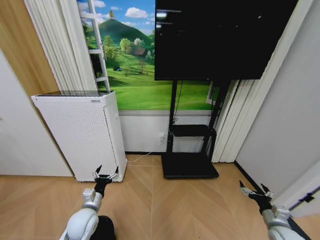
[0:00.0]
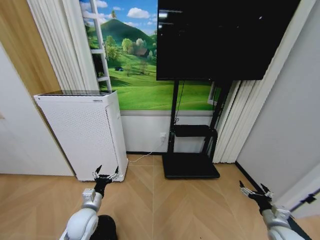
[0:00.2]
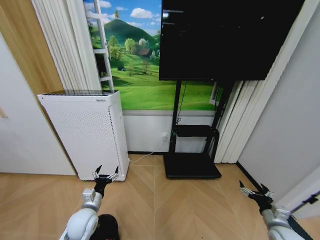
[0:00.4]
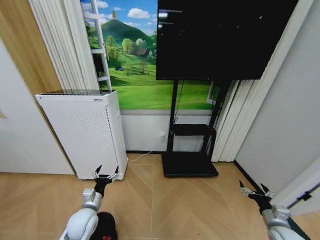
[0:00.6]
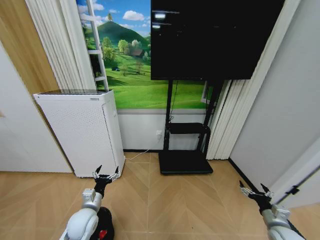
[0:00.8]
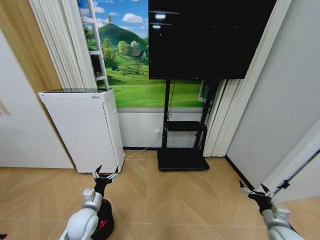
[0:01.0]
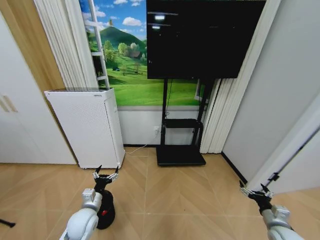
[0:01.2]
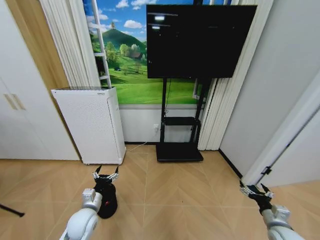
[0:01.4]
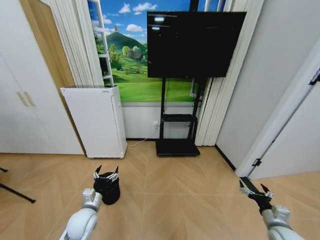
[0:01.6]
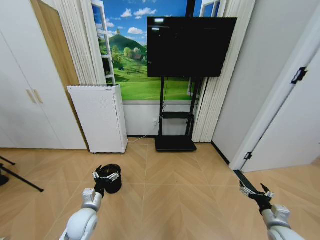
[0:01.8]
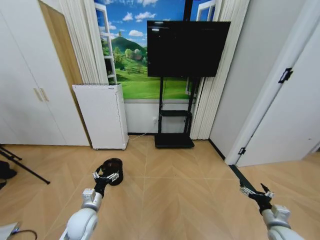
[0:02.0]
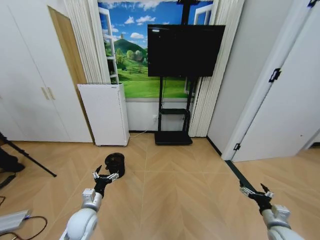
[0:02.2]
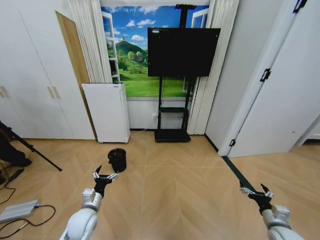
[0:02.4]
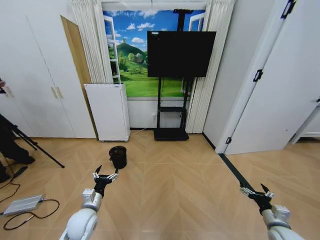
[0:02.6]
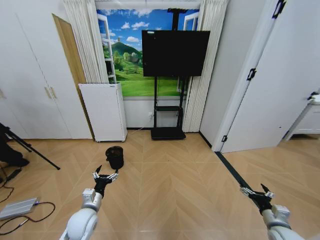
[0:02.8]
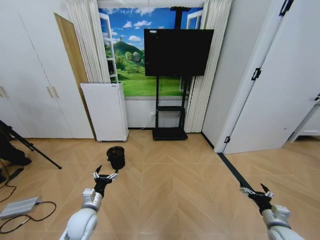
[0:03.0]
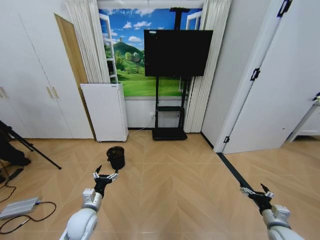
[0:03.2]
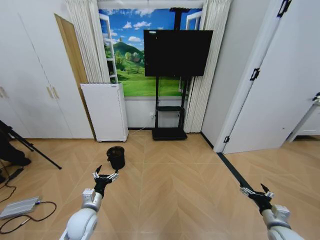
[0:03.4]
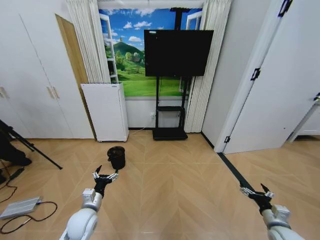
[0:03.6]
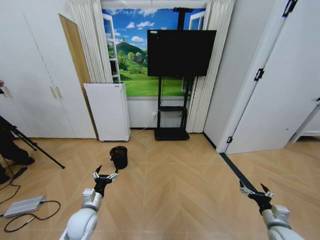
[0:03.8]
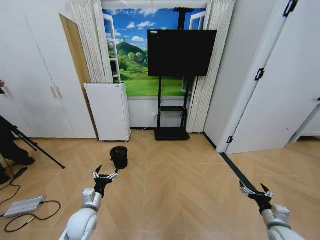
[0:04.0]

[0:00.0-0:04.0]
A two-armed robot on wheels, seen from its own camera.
Task of the whole recording: Pick up the trash bin and place the garbage on the floor into it.
0:02.6 to 0:04.0: Both grippers stay put.
